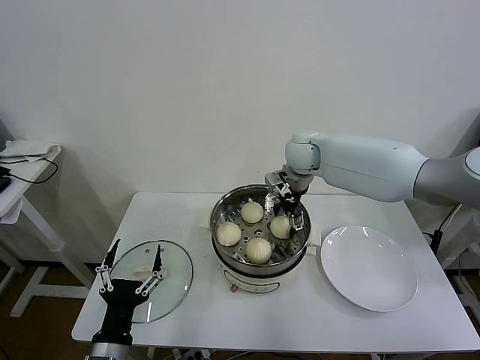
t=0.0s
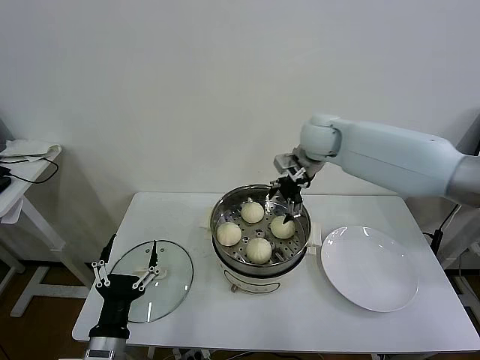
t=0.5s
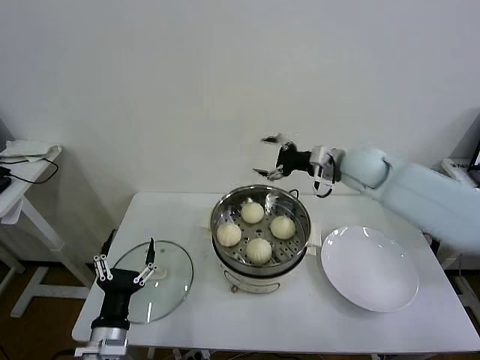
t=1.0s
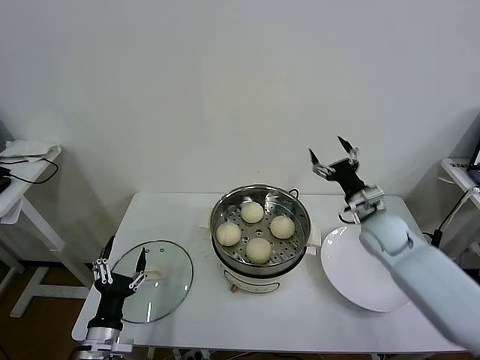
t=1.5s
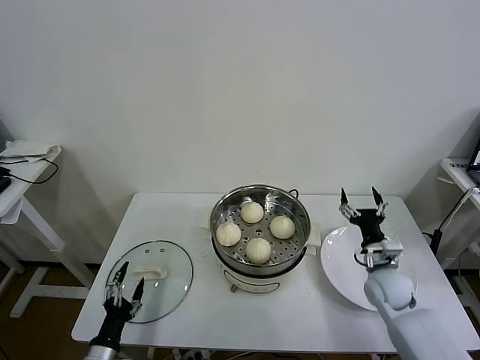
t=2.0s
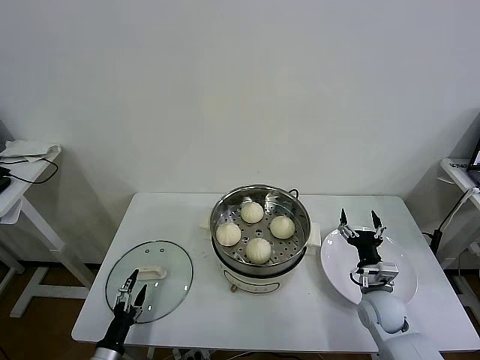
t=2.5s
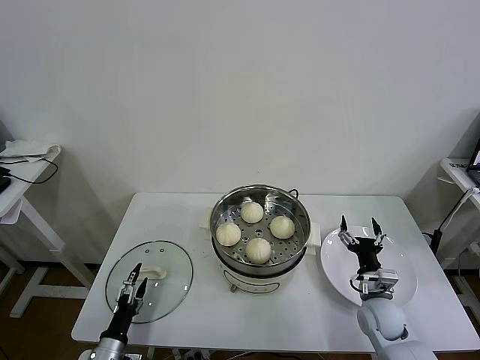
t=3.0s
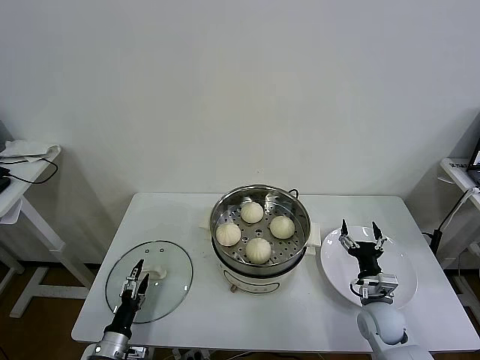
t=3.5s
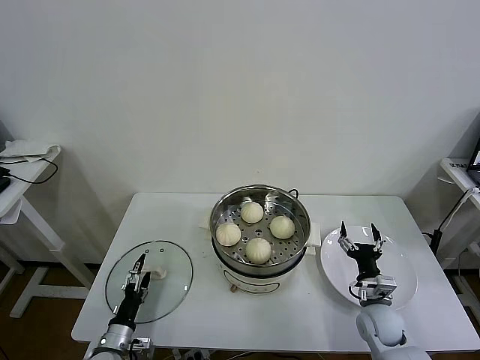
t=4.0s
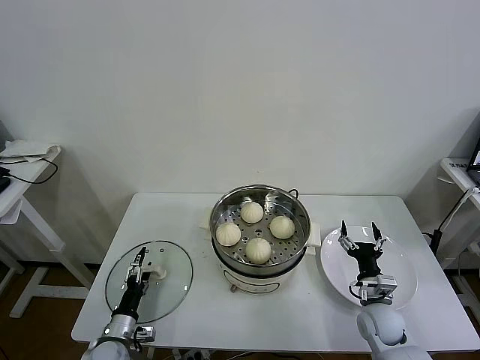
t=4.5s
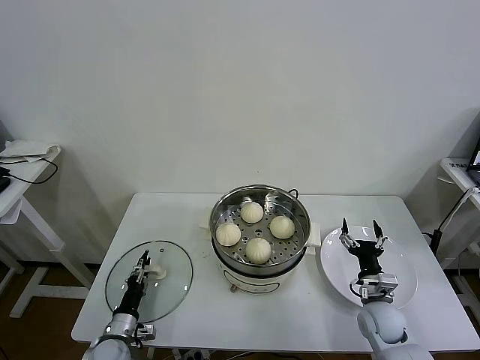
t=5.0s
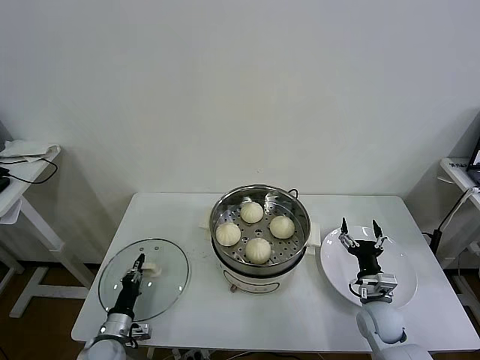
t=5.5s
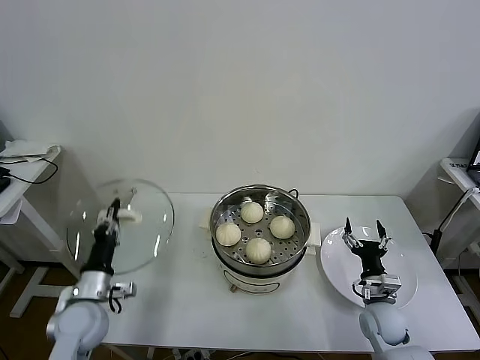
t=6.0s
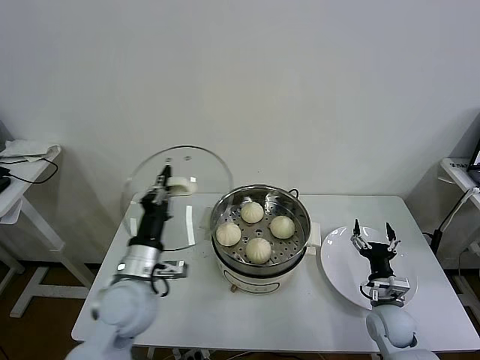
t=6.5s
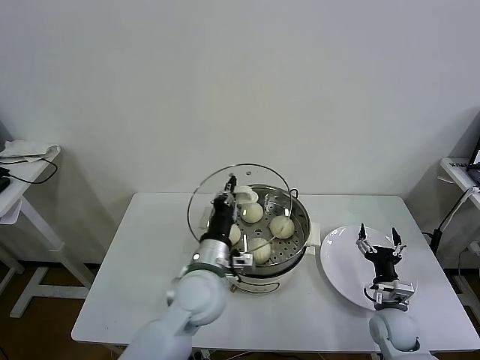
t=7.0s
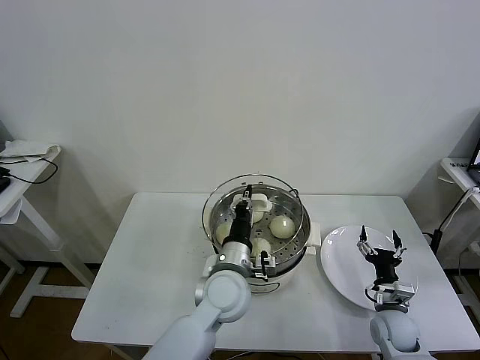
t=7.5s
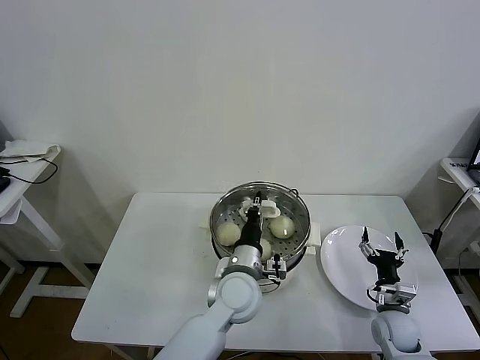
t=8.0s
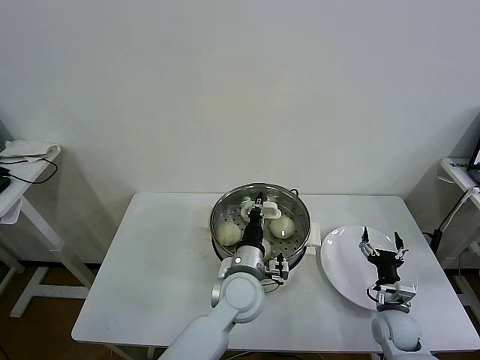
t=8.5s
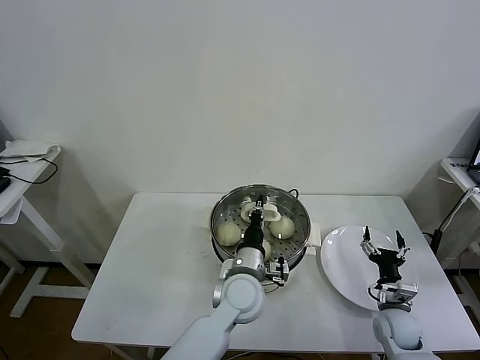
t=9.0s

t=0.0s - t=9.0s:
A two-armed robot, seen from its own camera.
Task of the whole recording: take steamed baozi put them in steamer then cover it.
Step, t=0.5s - t=5.5s: Grasp the pot lid with left gripper.
t=0.0s - t=2.0s: The left gripper heads downward and to the left, covering about 15 cm. Meanwhile the right gripper moves downward, backward and to the right, about 35 cm.
t=2.0s - t=4.5s: The right gripper moves downward and backward, roughly 10 cm, while the left gripper moves forward and downward, approximately 10 cm.
t=4.5s - t=7.0s: The left gripper goes roughly 35 cm upward and to the right, and closes.
t=7.0s - t=9.0s: The left gripper shifts about 10 cm to the right and downward.

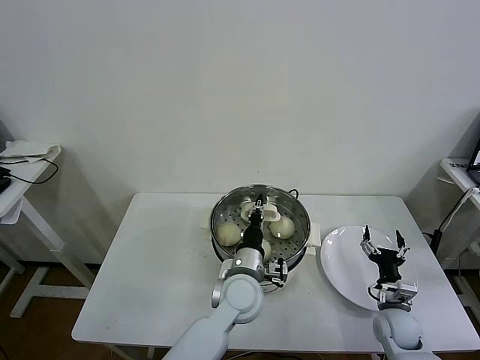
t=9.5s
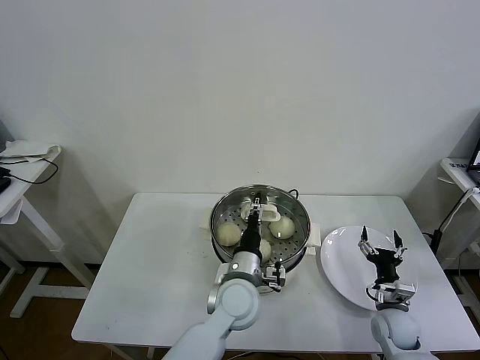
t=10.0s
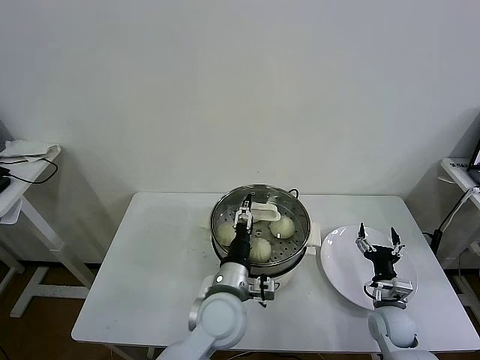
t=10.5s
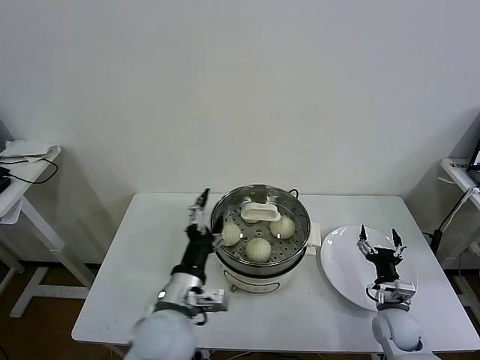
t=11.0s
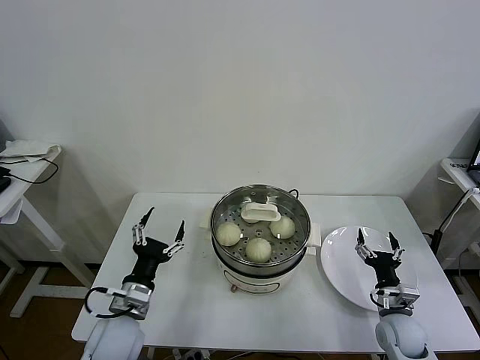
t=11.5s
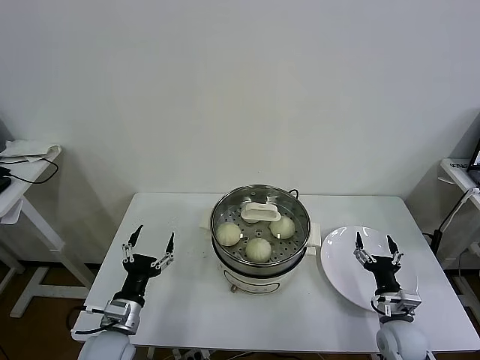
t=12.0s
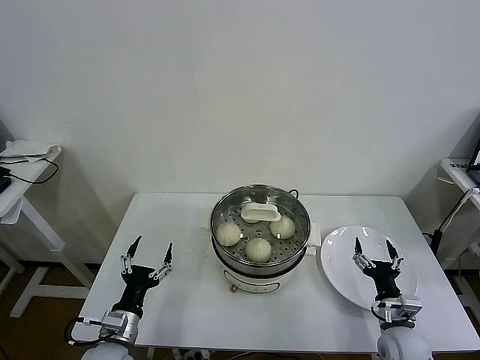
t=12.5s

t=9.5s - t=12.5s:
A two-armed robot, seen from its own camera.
Task of the whole recording: take steamed baozi put them in steamer then cover it.
t=9.5s - t=11.0s: The left gripper travels to the left, backward and upward by roughly 15 cm, and opens its fingers.
t=11.0s - t=12.5s: The left gripper moves to the left and downward, roughly 20 cm.
